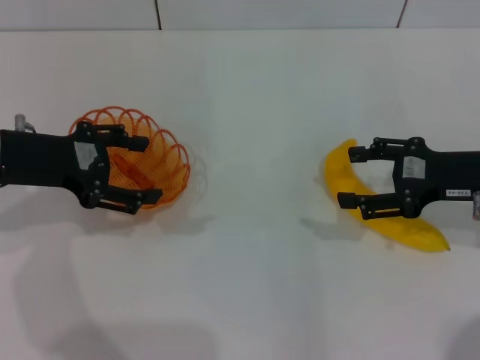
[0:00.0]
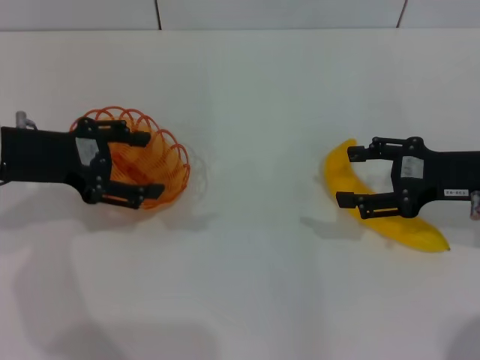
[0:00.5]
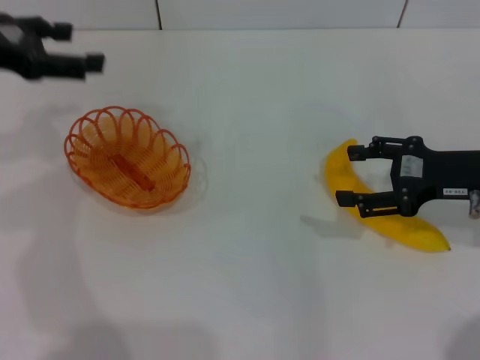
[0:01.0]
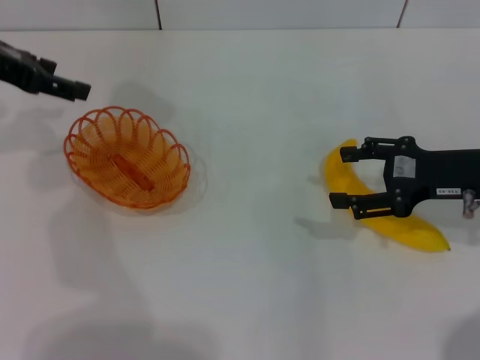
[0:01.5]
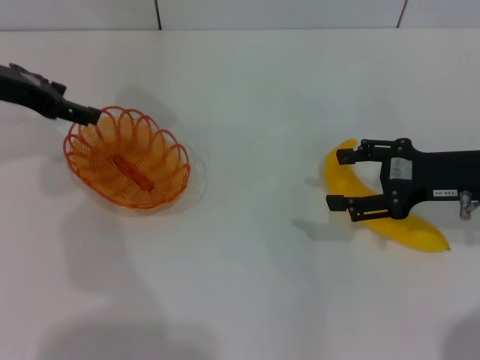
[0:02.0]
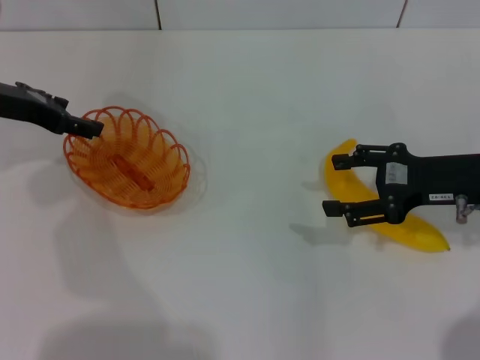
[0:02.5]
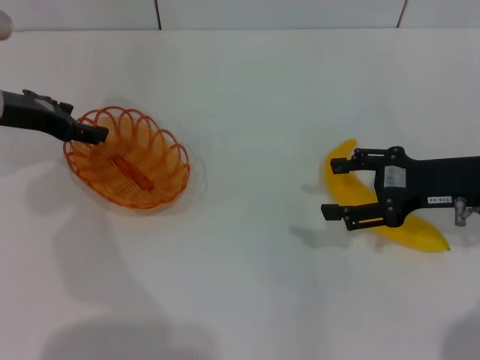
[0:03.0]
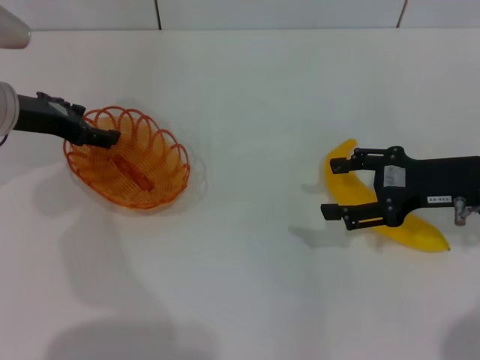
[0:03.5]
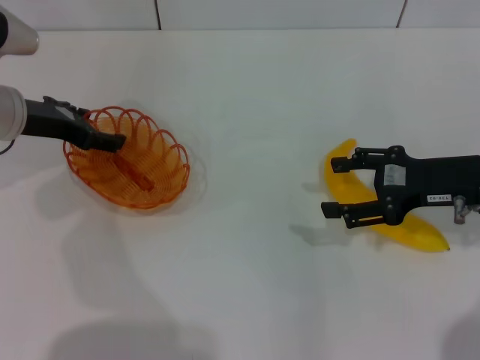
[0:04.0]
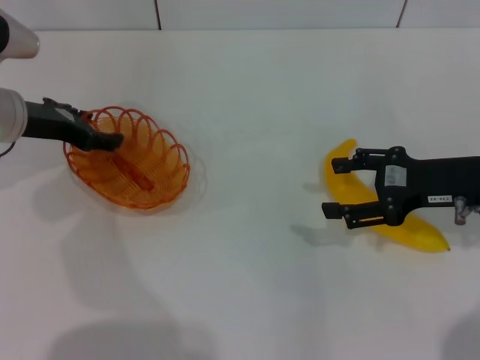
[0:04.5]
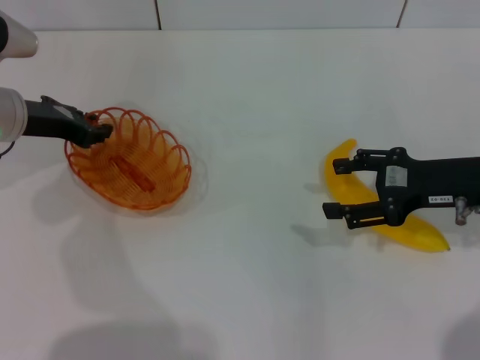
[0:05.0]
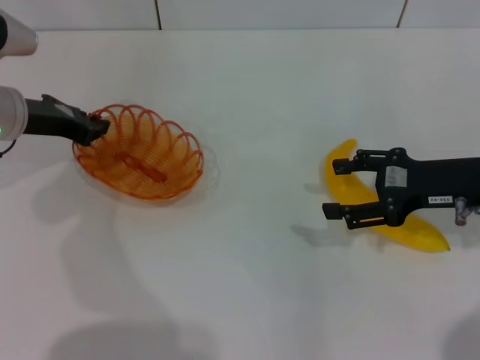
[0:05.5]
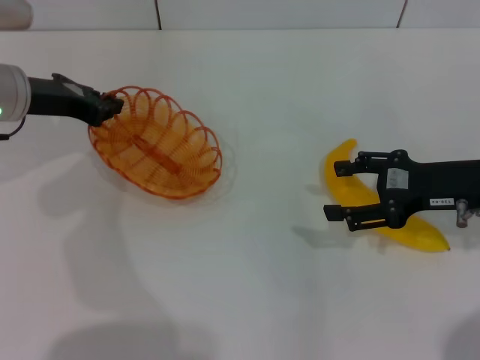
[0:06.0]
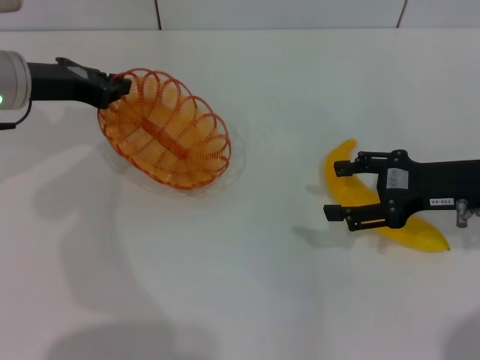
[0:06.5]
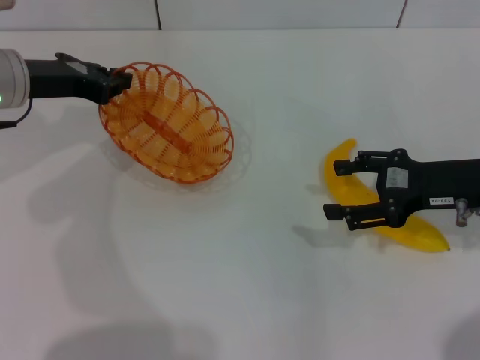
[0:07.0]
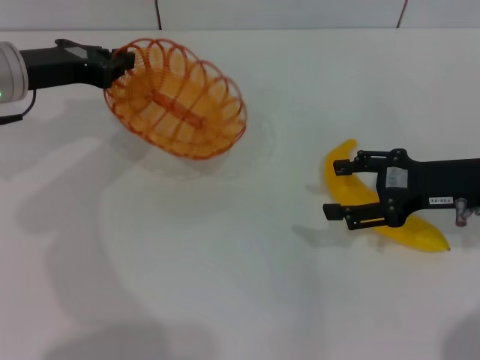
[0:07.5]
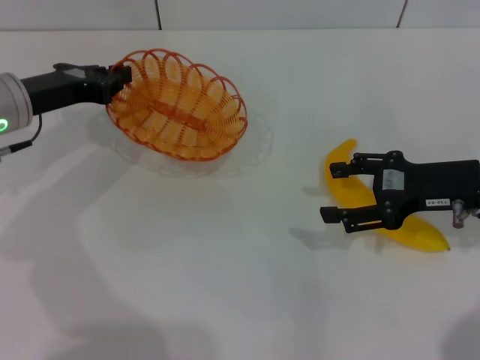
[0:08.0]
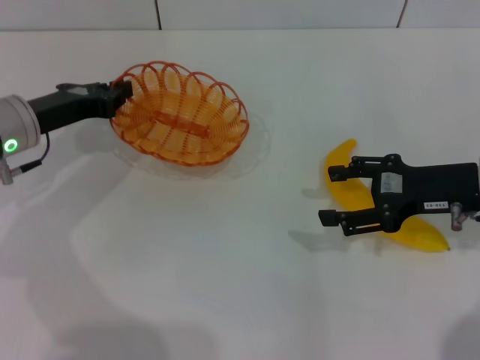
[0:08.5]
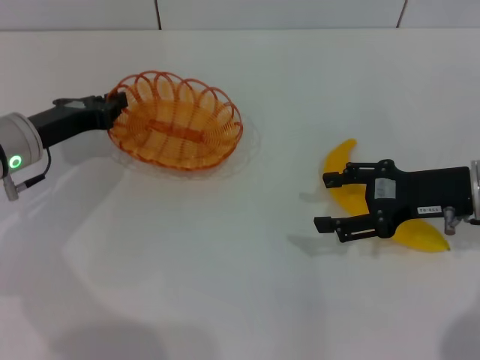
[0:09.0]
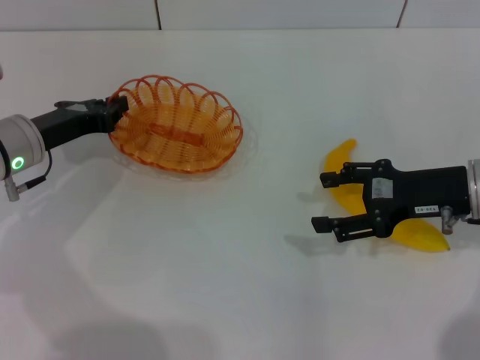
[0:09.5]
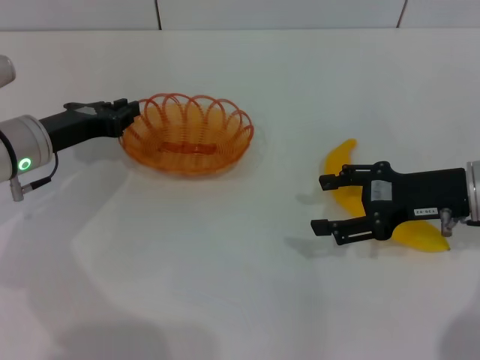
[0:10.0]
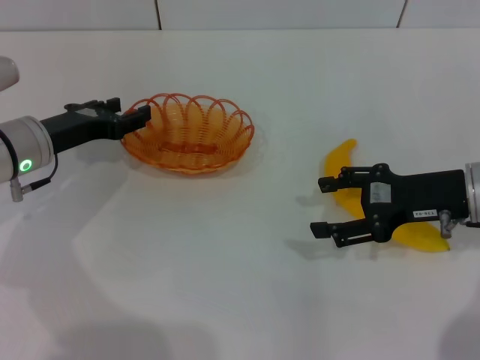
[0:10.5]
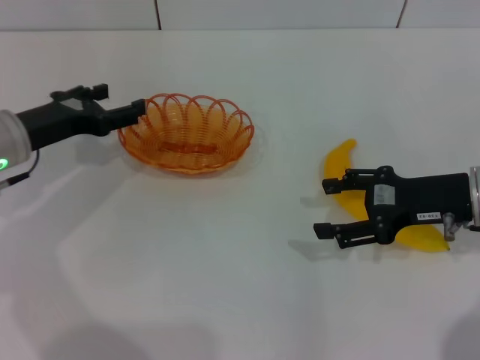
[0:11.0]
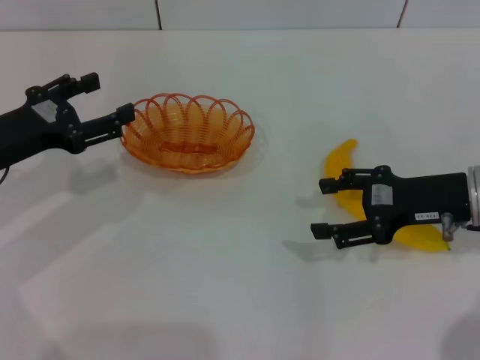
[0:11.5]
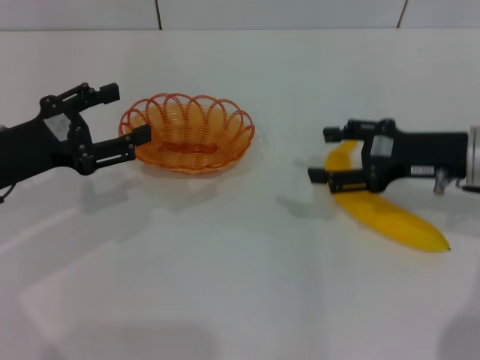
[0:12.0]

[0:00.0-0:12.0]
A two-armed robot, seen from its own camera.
Step, 0.0 to 5.5 s: Pick up the basket with the left gripper.
Step, 6.5 to 11.5 s: Place the basket in the center of view with the left gripper.
0.0 to 2.0 s: The left gripper travels forward by approximately 5 cm.
2.0 to 4.0 s: The left gripper goes some 5 cm downward.
4.0 to 6.0 s: The left gripper closes.
8.0 to 10.0 s: The grippers stay close to where they were, moving slightly.
10.0 to 12.0 s: The left gripper goes about 5 cm backward, and opens up.

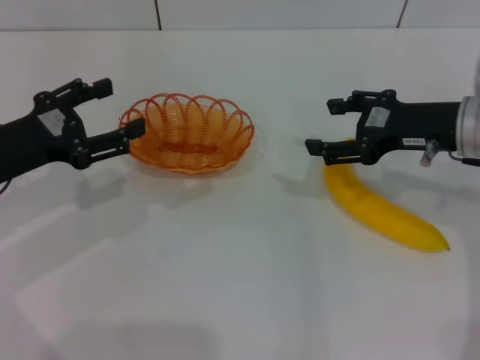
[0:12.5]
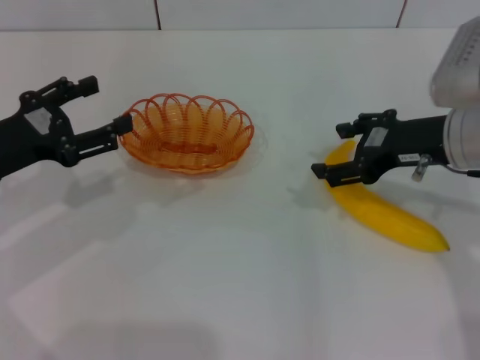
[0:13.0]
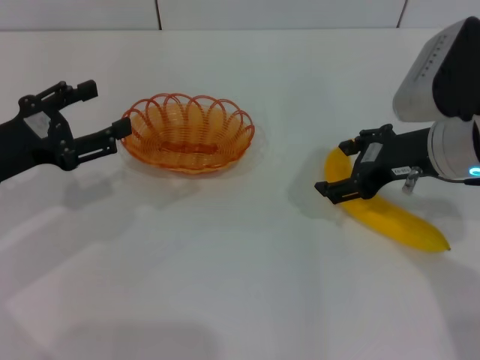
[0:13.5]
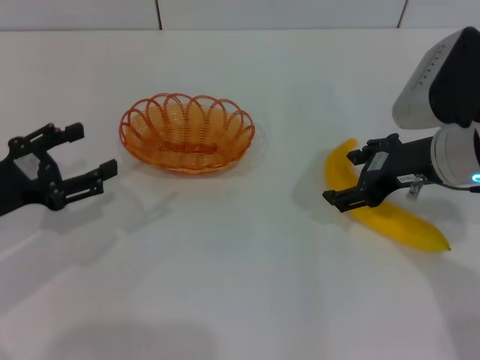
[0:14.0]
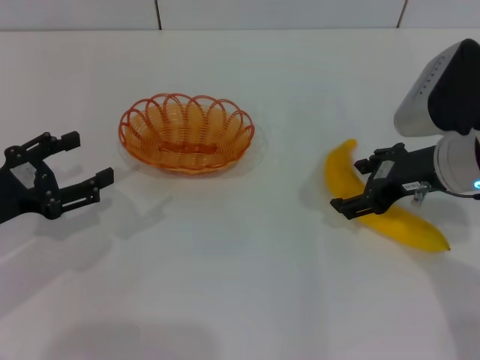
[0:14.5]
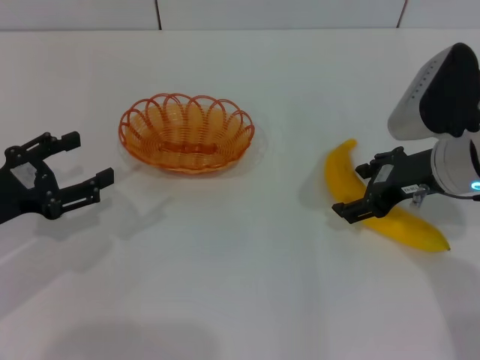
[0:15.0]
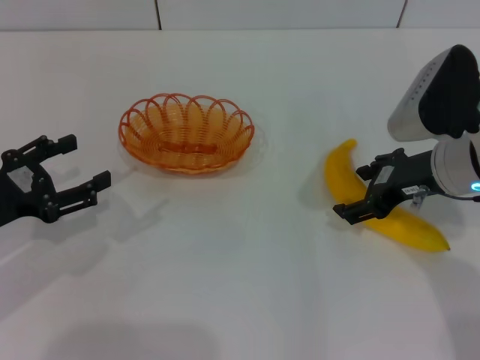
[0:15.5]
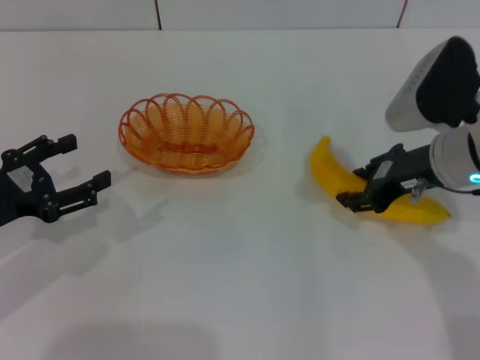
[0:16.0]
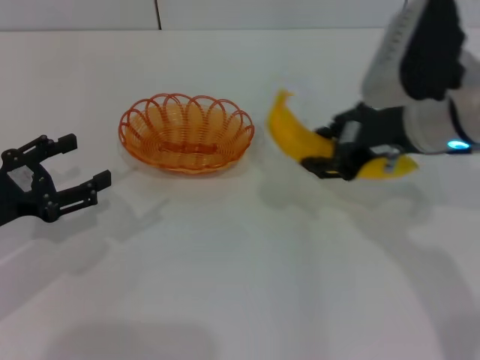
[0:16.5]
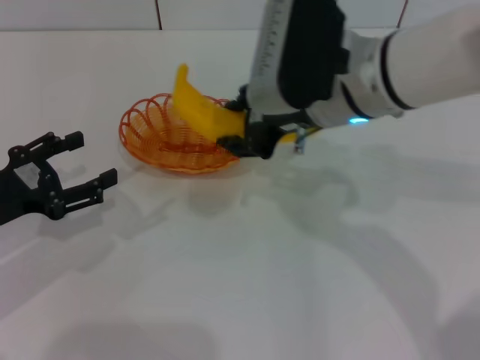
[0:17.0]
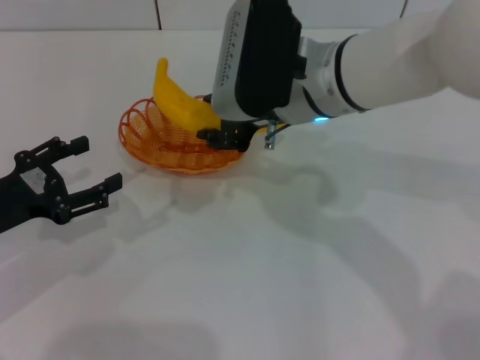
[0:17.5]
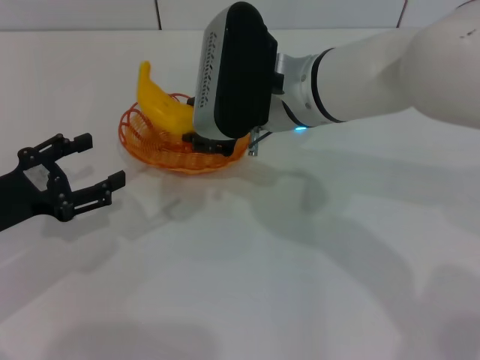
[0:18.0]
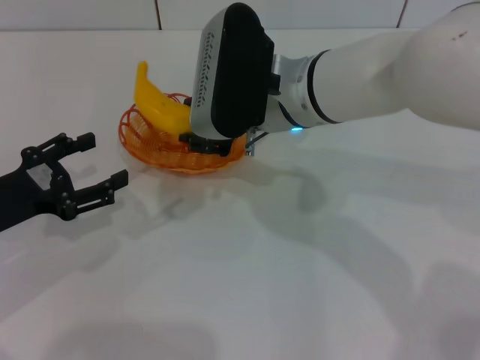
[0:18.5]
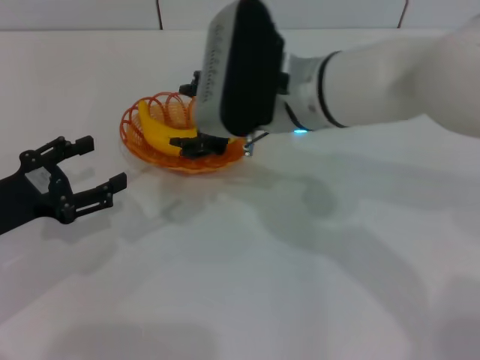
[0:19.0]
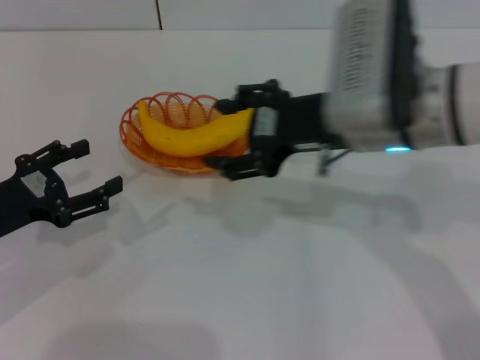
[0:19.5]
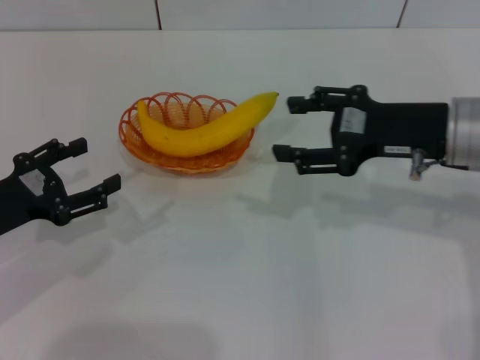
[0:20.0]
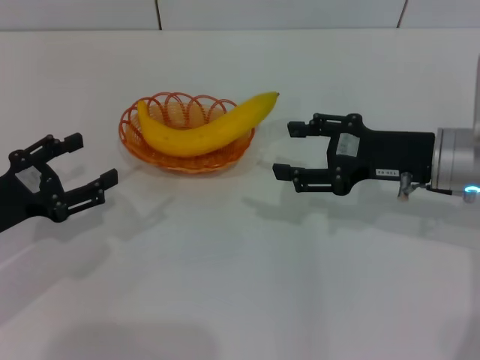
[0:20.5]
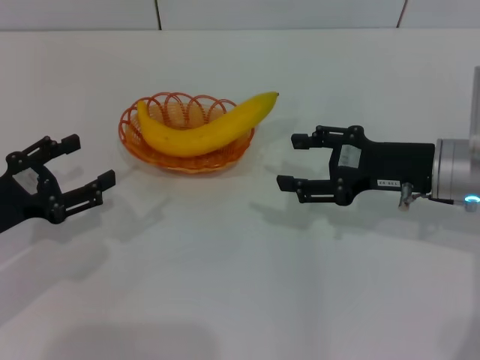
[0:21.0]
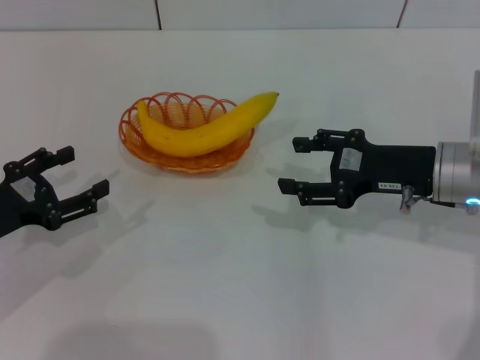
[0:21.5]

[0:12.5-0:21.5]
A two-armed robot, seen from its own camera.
Step, 12.5 to 16.0 s: Pick up the banana with the right gripper.
Step, 16.5 to 19.5 s: Place the banana into the basket with the right gripper.
12.5 to 14.5 s: The left gripper shifts by some 5 cm.
14.5 to 17.0 s: The right gripper goes about 15 cm to the left and upward, and closes its fingers.
17.0 to 19.5 s: The right gripper opens up.
19.5 to 21.5 s: The right gripper is displaced to the right and downward by some 15 cm.

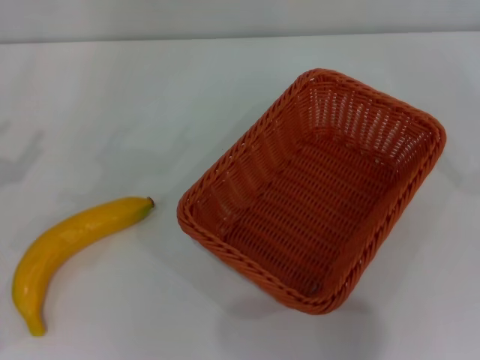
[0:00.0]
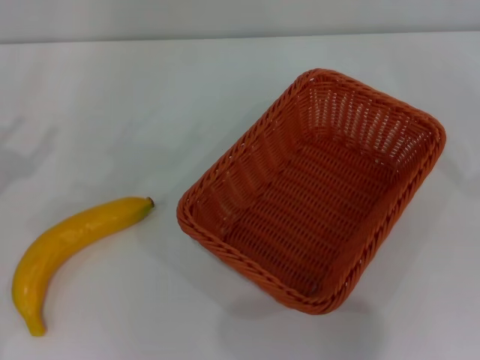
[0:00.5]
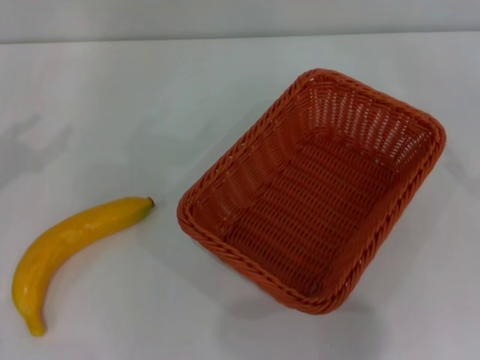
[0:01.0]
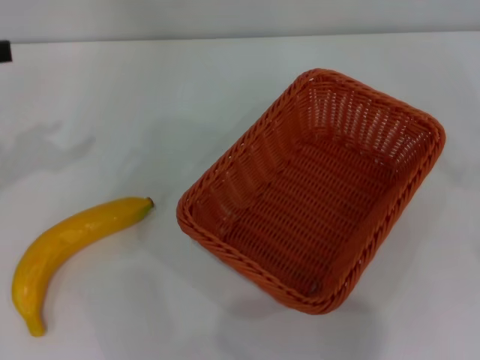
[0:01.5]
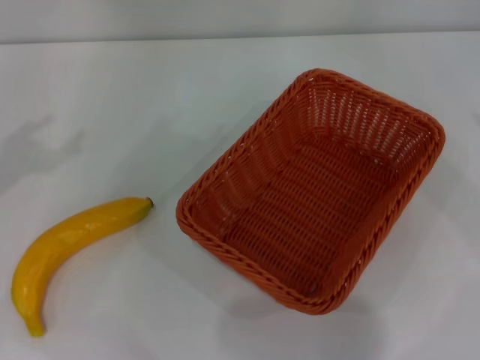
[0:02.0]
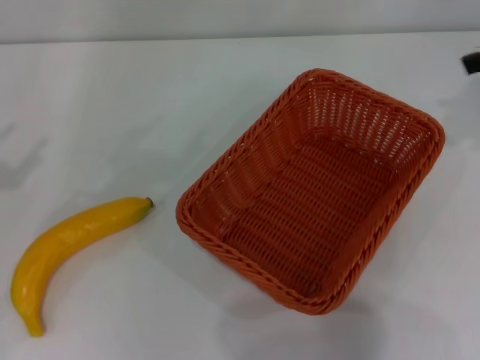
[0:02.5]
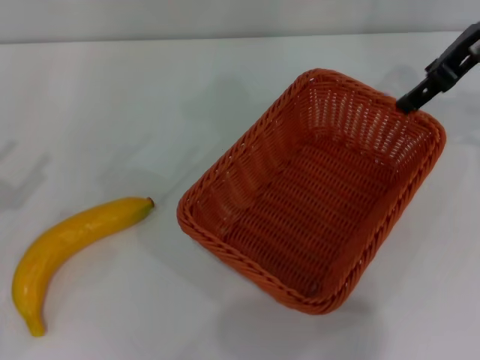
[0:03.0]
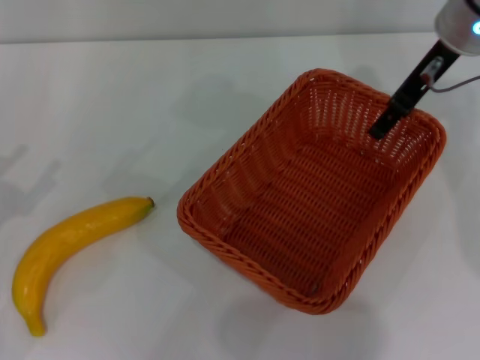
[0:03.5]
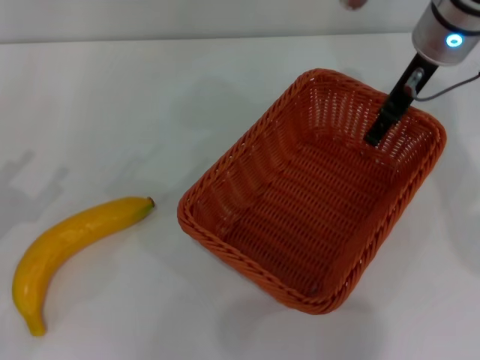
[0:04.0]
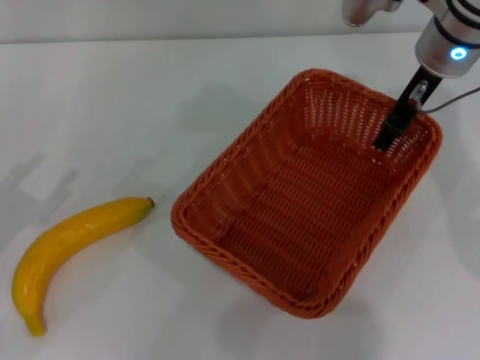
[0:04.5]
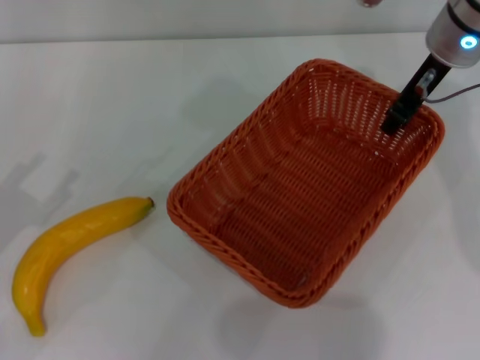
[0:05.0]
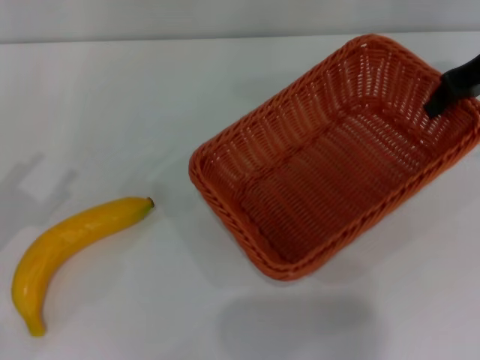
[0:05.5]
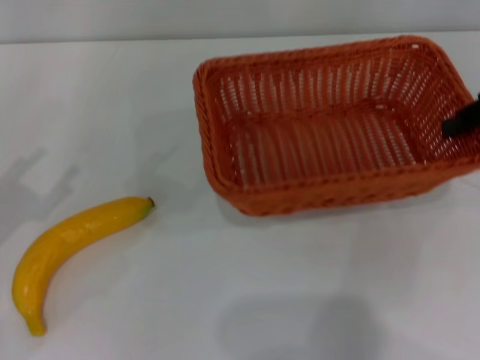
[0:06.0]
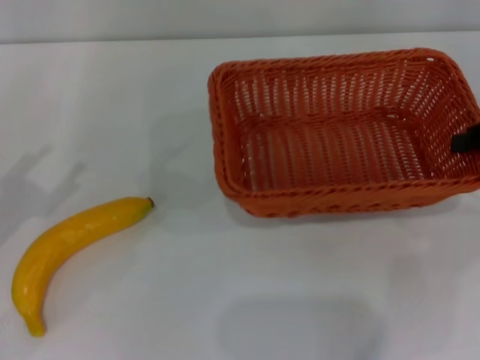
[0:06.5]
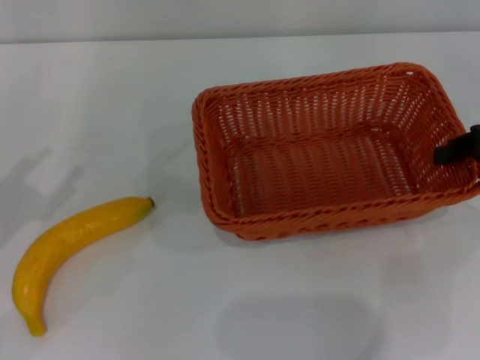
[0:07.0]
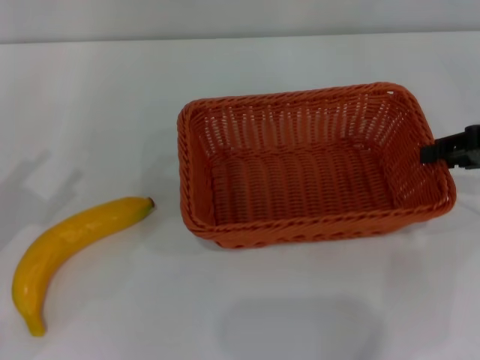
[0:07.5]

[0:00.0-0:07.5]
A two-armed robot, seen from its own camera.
Step, 0.0 to 5.0 s: Pick up the light basket with the right gripper.
2.0 to 4.0 s: The right gripper moves to the left and forward, some 30 cm.
4.0 to 5.5 s: The right gripper shifts some 10 cm to the right, and closes its fingers.
5.5 to 7.5 s: The right gripper is displaced backward, downward and to the right by roughly 10 cm.
